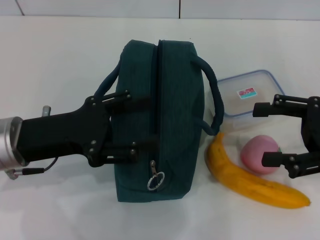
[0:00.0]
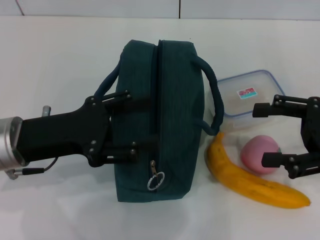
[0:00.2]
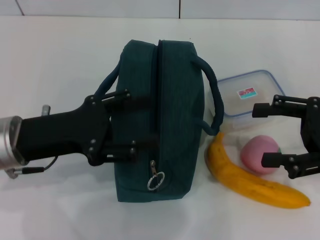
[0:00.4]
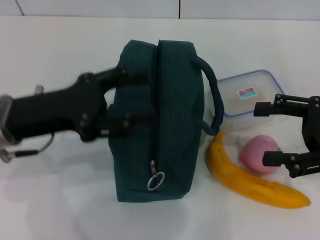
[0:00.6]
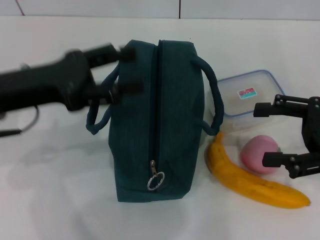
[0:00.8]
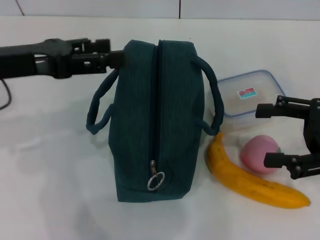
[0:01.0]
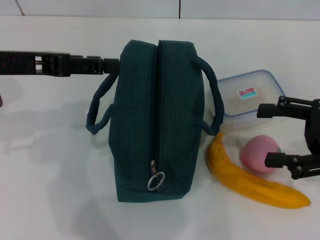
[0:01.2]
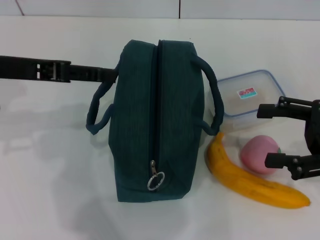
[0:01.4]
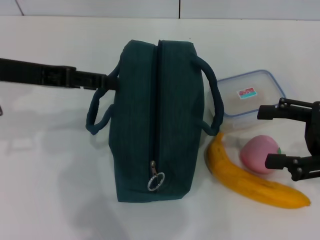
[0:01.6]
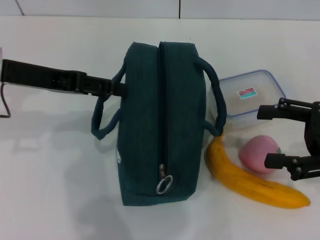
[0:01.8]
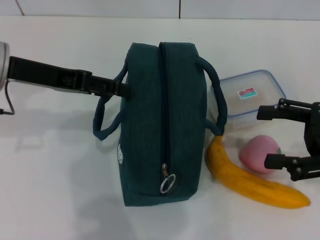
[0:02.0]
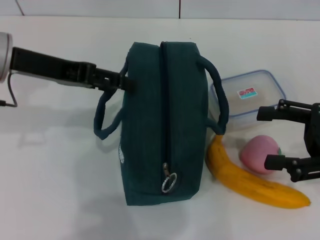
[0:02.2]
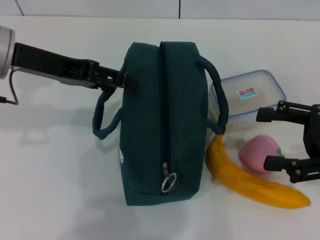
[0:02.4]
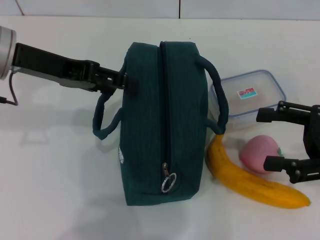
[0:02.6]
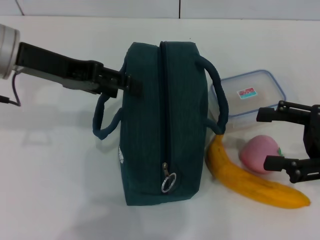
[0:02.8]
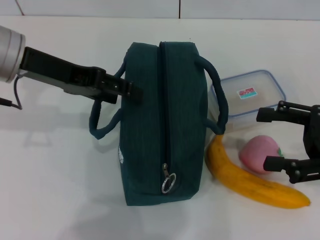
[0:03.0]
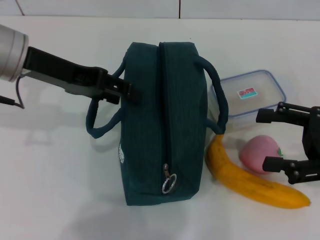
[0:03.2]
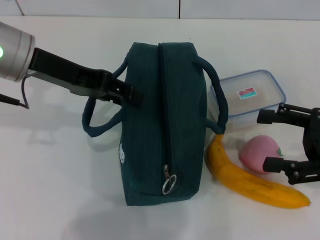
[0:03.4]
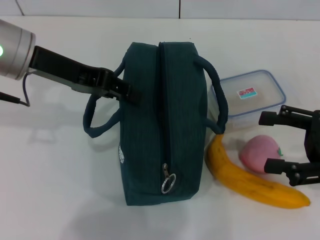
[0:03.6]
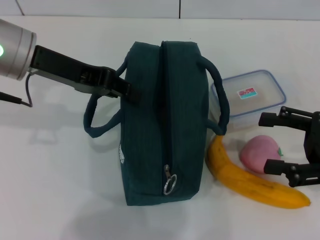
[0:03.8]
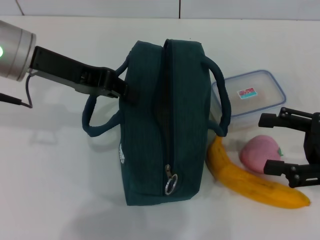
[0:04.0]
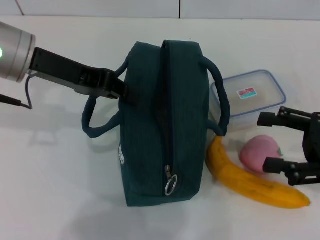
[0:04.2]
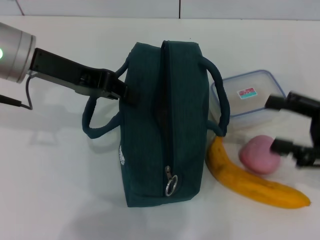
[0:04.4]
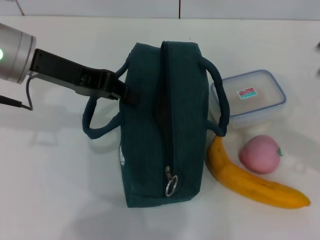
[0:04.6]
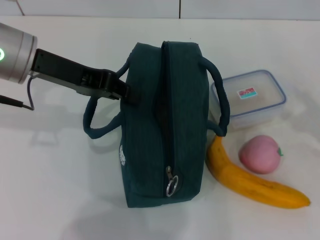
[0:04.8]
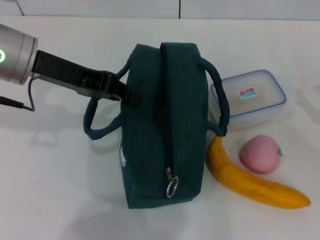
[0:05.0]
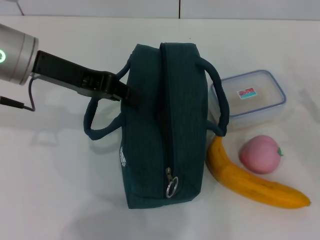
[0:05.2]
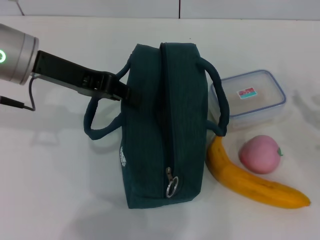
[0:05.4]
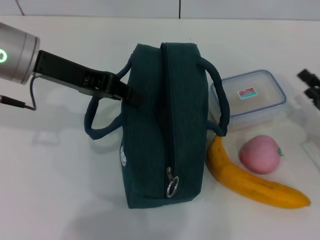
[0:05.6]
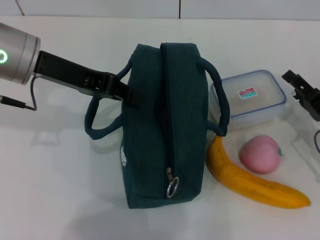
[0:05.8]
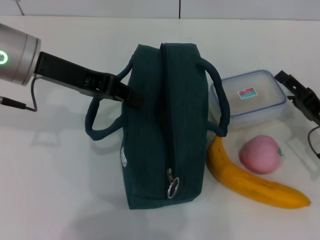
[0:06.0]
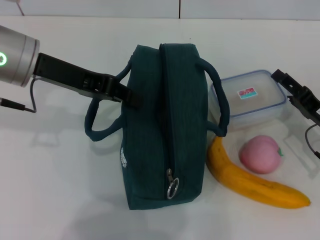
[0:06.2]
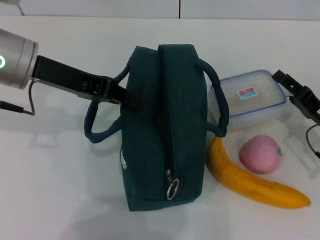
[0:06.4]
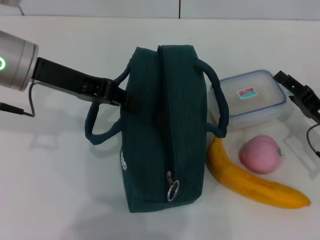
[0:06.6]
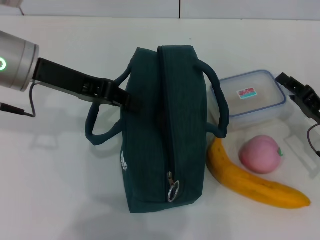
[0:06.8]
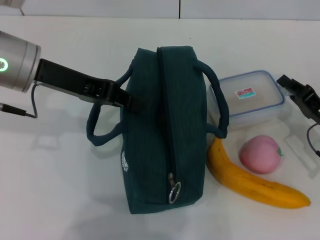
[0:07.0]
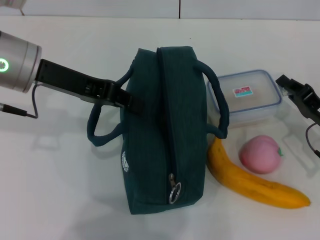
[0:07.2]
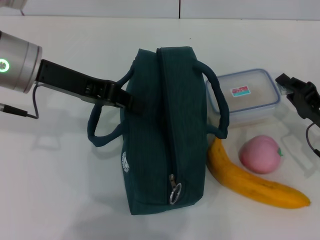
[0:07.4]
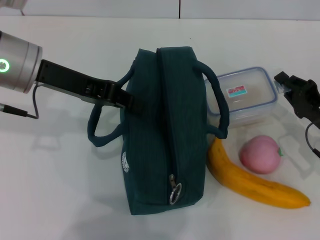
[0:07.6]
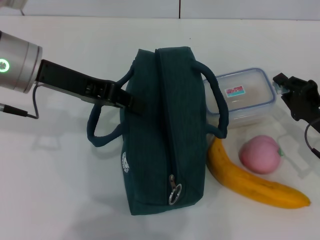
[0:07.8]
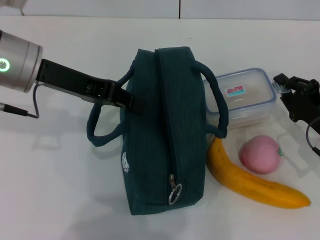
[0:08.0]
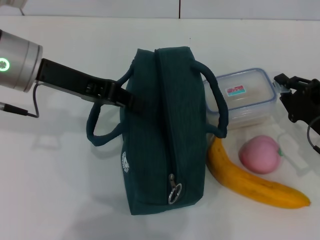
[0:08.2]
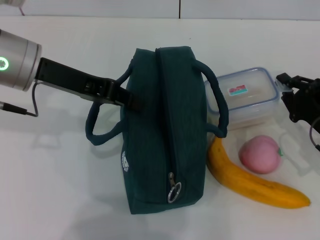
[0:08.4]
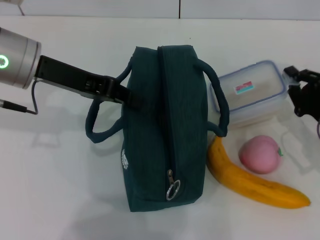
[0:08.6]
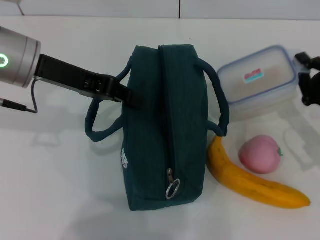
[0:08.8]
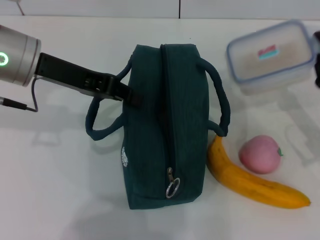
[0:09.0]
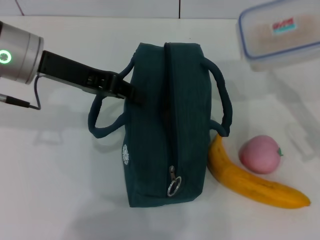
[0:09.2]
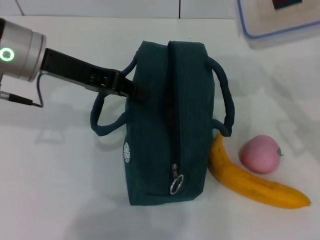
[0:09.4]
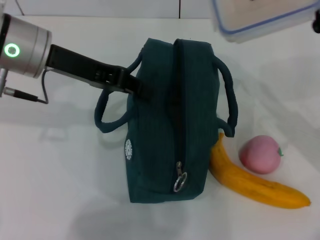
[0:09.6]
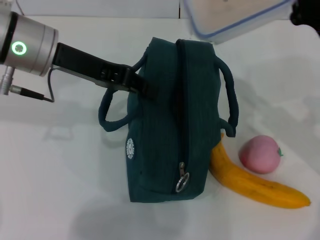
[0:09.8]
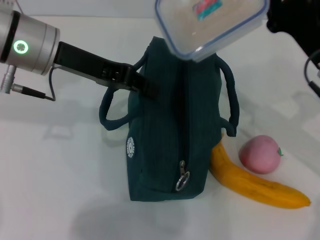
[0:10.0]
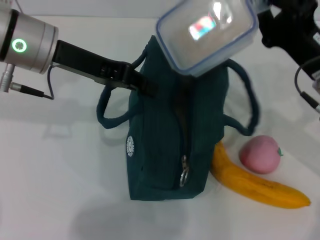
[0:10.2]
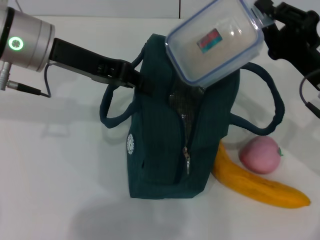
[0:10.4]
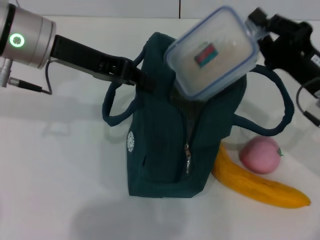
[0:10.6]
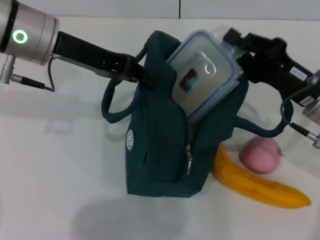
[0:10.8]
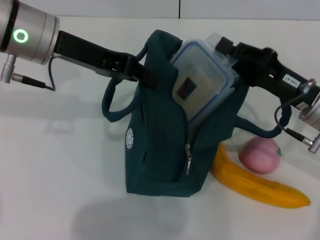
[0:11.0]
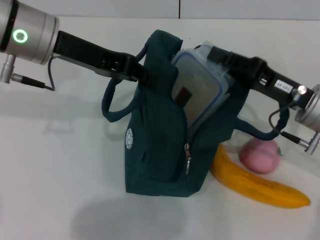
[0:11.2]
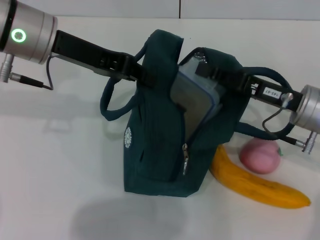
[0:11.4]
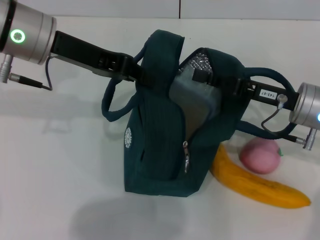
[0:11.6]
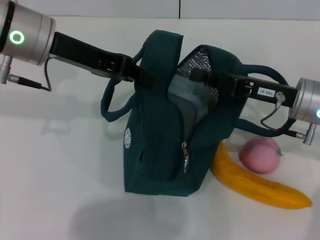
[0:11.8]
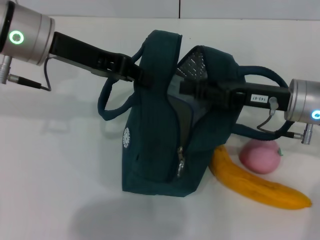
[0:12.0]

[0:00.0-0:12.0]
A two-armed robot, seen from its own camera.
Step, 0:00.0 to 0:03.8: Hold the lunch bag with your left hand.
Step, 0:04.0 to 0:07.8: Pick up the lunch box with your right hand.
Step, 0:08.0 to 0:12.0: Place the lunch box into the lunch bag with your right hand.
0:00.0 to 0:01.6: The left gripper moves upward and forward, some 10 cm.
0:01.6 to 0:03.0: There are only small adjustments of the grippers.
0:03.0 to 0:04.4: The left gripper closes its fingers.
0:04.4 to 0:06.0: The right gripper goes roughly 10 cm downward.
0:06.0 to 0:07.6: The right gripper closes up.
0:09.0 to 0:10.4: The right gripper heads to the left, covering about 5 cm.

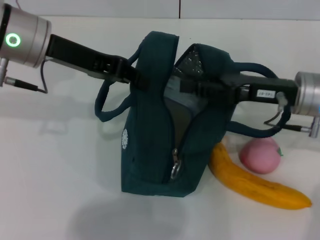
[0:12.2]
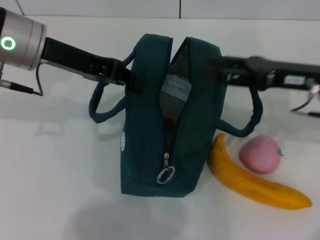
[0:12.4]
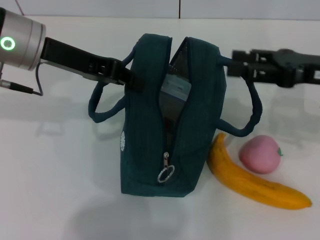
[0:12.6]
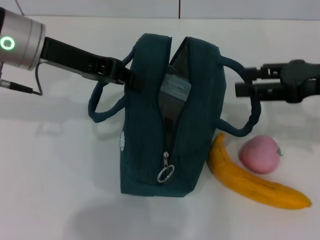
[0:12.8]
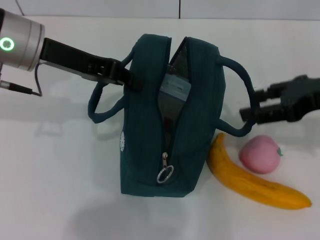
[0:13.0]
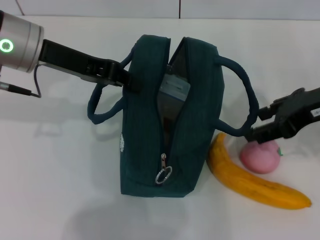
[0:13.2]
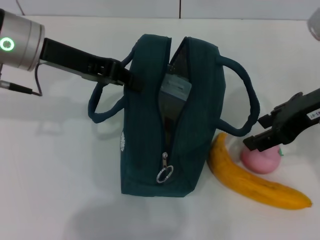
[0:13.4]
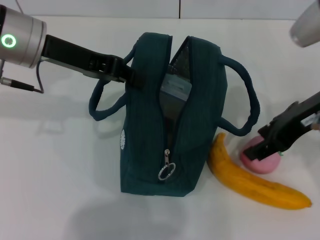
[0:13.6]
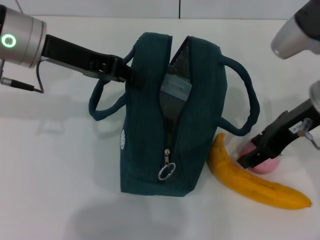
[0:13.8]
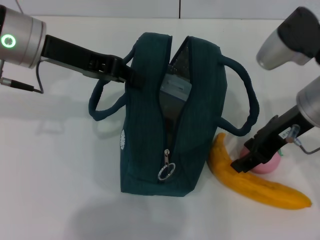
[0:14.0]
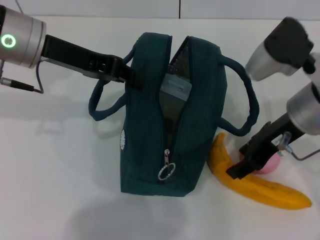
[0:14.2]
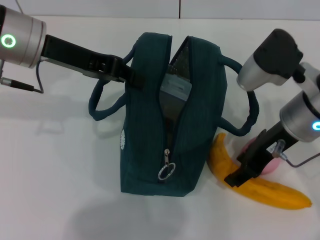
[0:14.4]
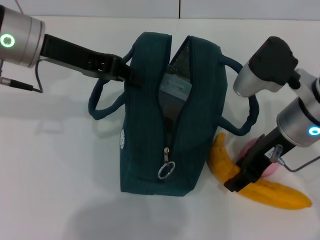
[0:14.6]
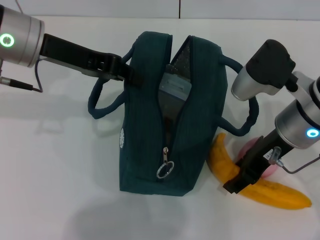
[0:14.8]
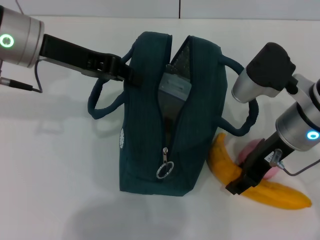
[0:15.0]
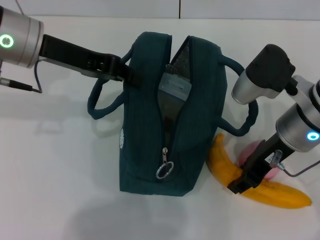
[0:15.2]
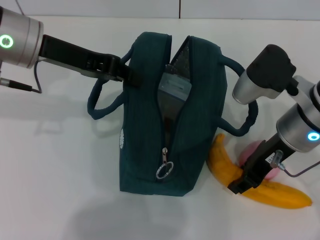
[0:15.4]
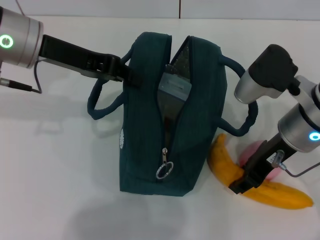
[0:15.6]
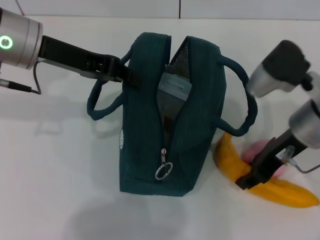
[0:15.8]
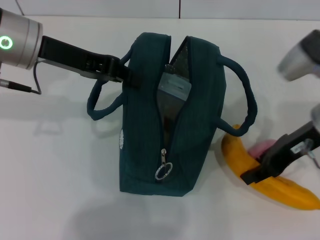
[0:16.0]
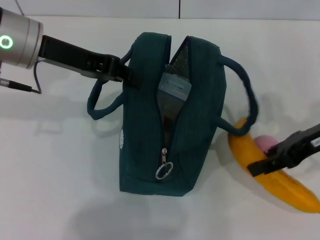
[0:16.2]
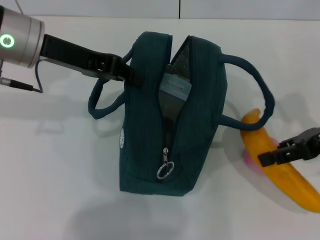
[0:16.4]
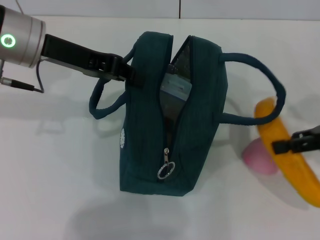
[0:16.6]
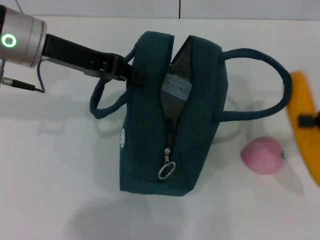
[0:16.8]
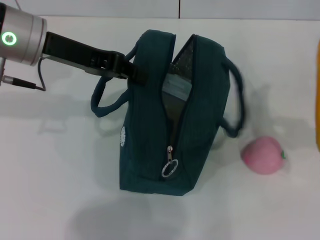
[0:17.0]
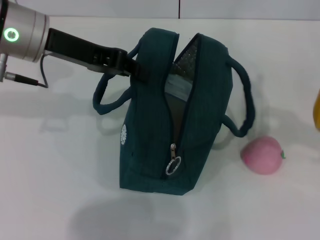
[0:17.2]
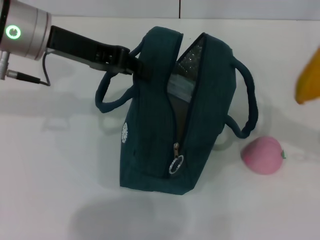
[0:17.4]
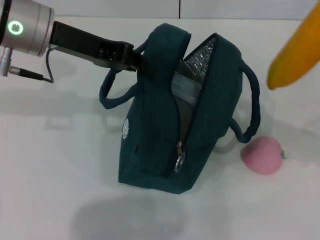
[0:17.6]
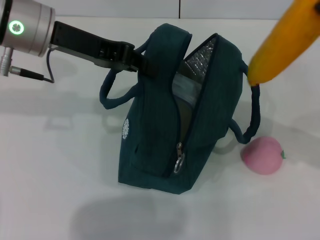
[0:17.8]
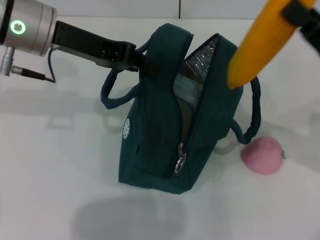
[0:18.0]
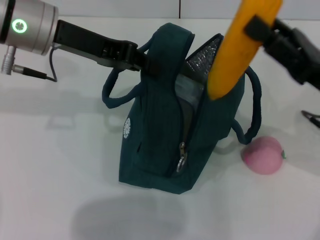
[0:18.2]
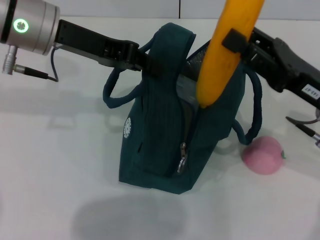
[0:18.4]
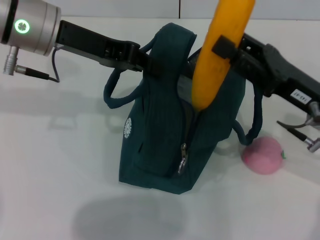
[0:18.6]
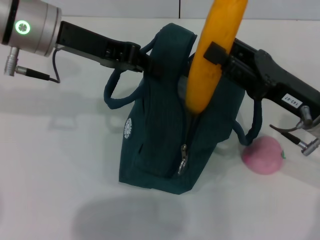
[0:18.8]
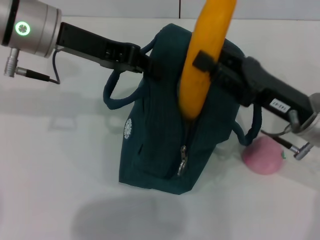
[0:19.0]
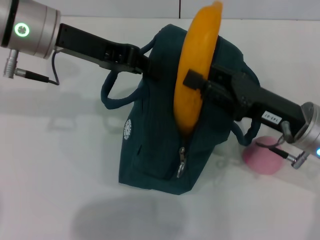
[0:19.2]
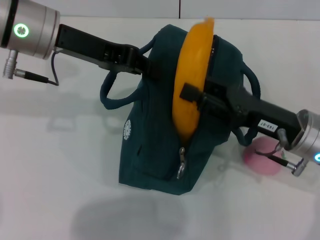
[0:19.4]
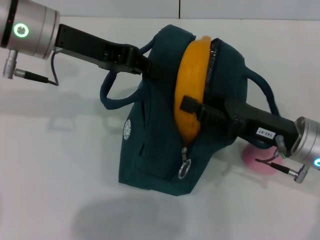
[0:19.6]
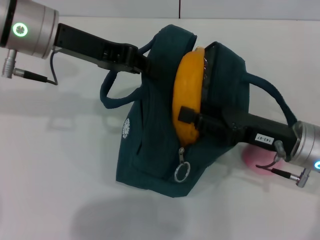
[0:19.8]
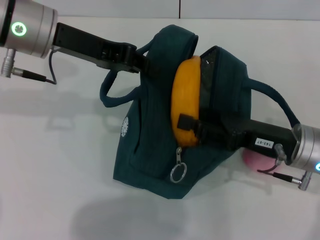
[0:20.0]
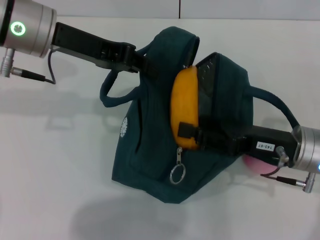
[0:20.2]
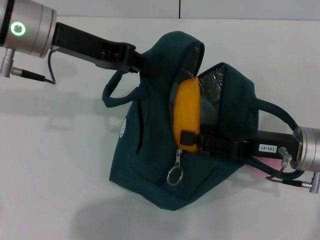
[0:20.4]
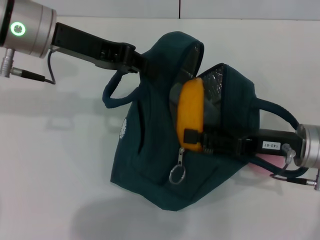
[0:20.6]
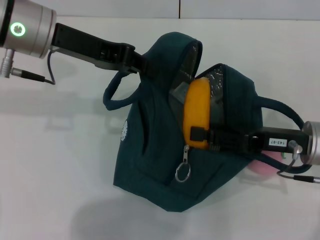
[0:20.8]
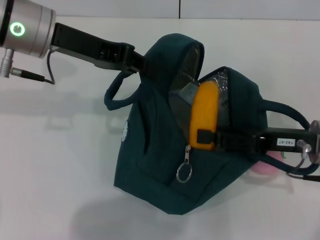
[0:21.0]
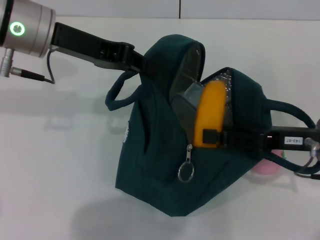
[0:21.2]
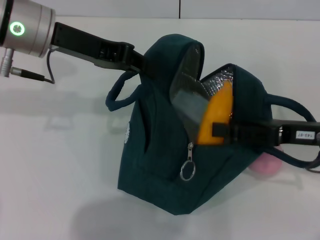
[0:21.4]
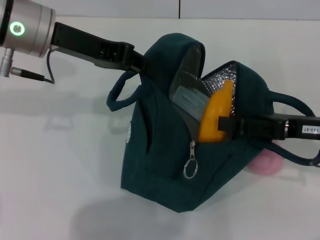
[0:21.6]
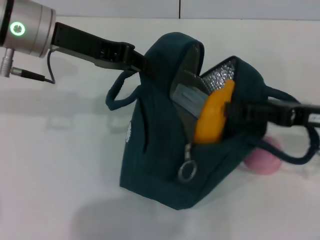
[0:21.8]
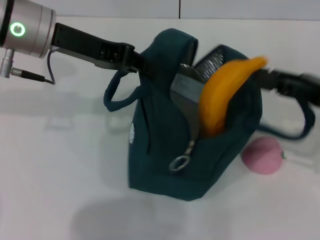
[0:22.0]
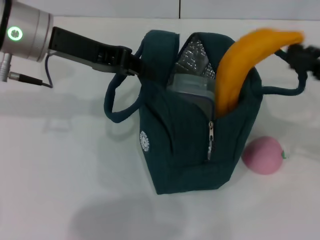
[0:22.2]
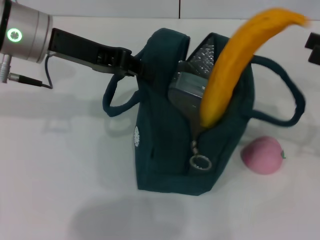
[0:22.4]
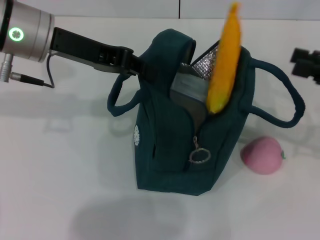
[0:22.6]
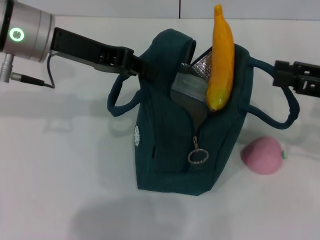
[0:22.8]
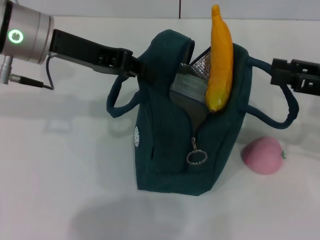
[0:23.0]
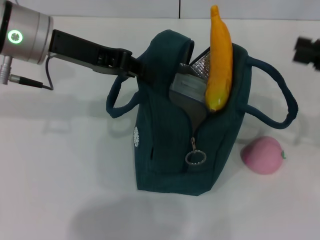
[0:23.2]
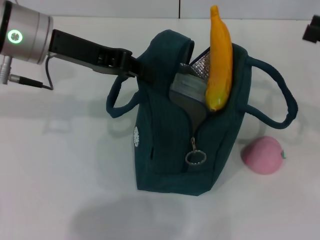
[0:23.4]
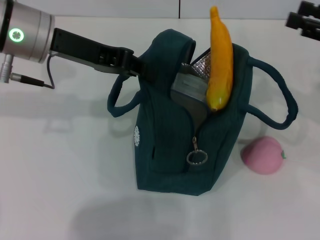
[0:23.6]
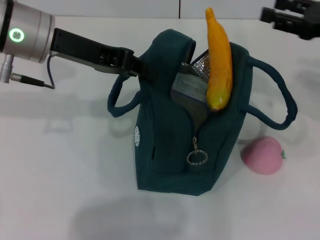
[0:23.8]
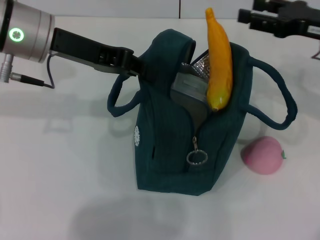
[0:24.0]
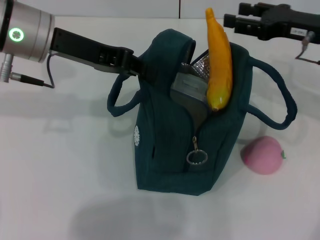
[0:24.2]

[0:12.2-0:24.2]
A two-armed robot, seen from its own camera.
Step, 0:12.2 to 0:15.2: Take the banana with your right hand.
0:12.2 to 0:13.8: The right gripper shifts approximately 10 cm upward, and opens up.
0:13.8 to 0:15.2: The right gripper heads downward, covering roughly 5 cm.
0:15.2 to 0:16.6: The right gripper travels to the right by about 15 cm.
0:16.6 to 0:18.2: The right gripper heads to the left, covering about 10 cm.
0:18.2 to 0:19.8: The right gripper travels downward by approximately 5 cm.
0:21.2 to 0:22.6: The right gripper shifts approximately 10 cm to the right and upward.
0:22.6 to 0:24.2: The right gripper moves forward and to the left, some 15 cm.
